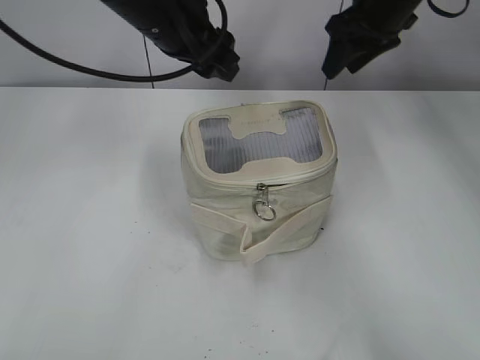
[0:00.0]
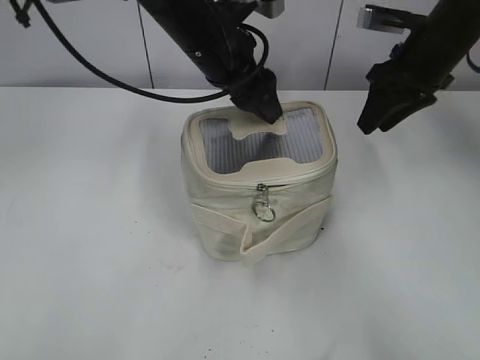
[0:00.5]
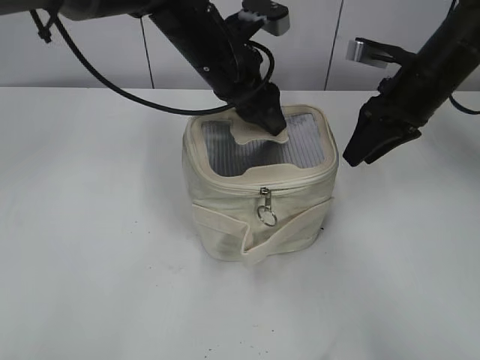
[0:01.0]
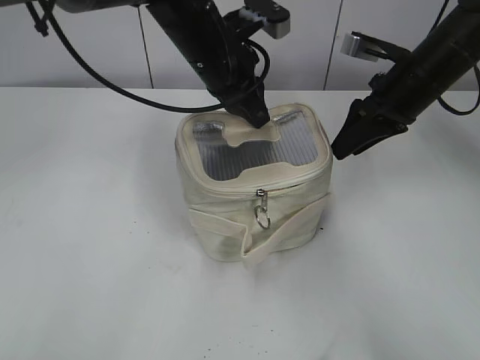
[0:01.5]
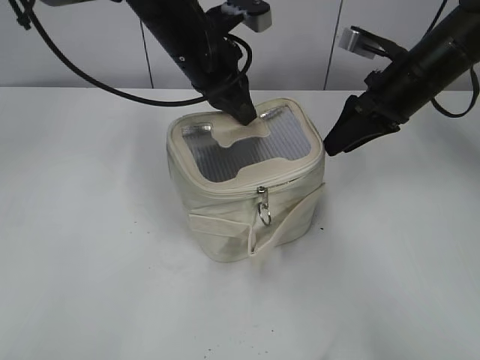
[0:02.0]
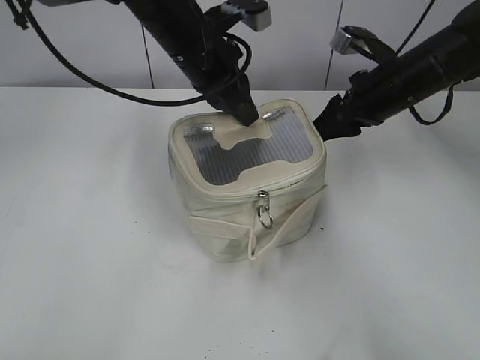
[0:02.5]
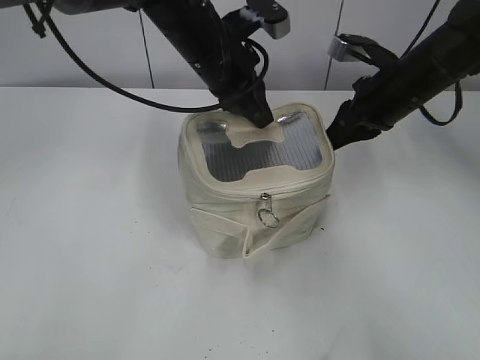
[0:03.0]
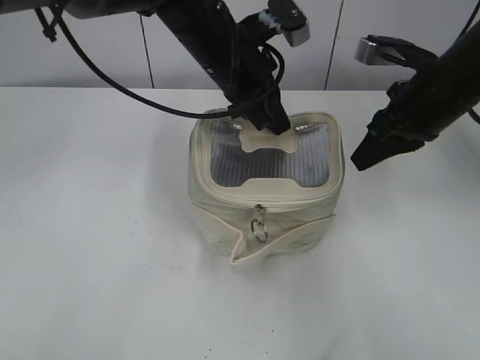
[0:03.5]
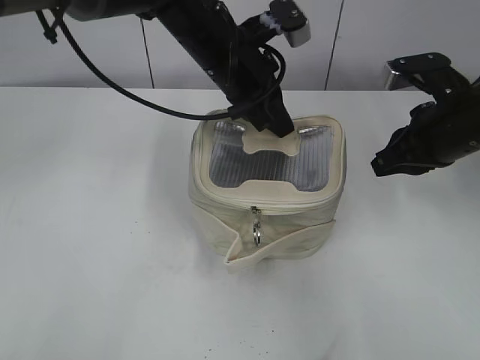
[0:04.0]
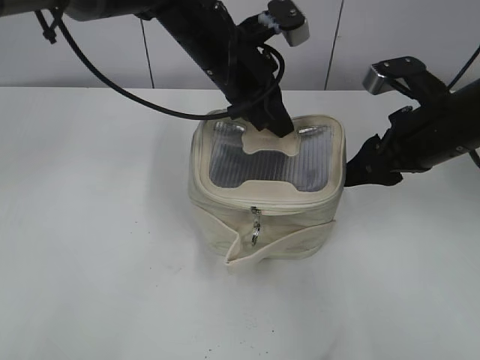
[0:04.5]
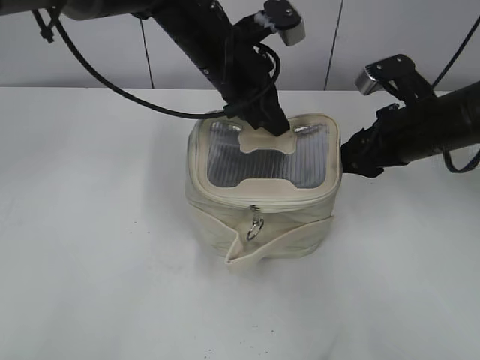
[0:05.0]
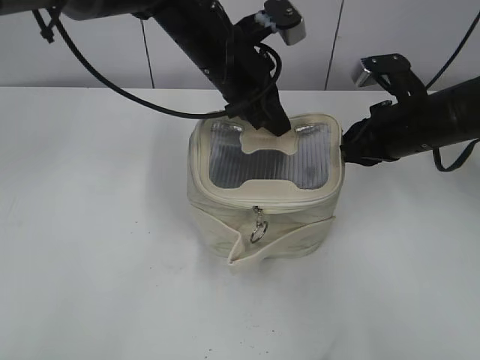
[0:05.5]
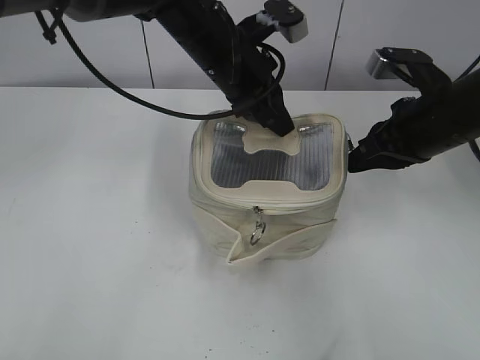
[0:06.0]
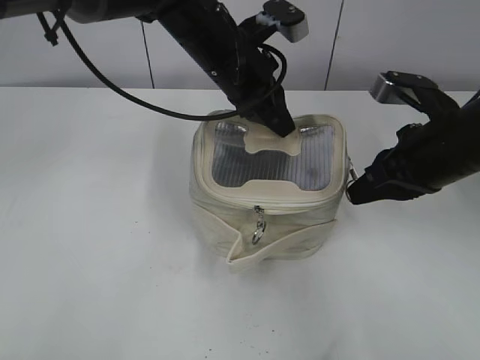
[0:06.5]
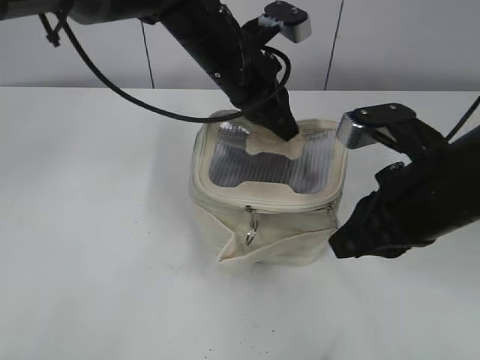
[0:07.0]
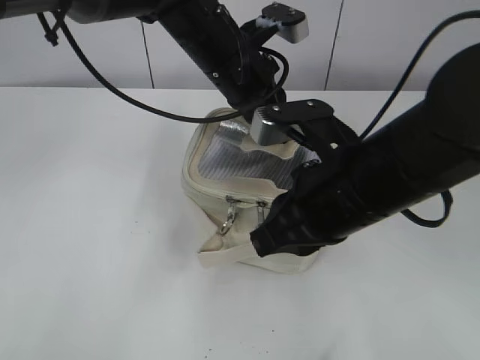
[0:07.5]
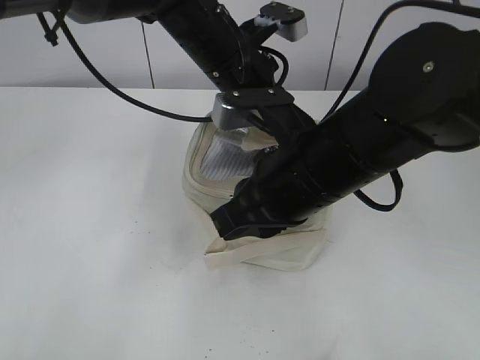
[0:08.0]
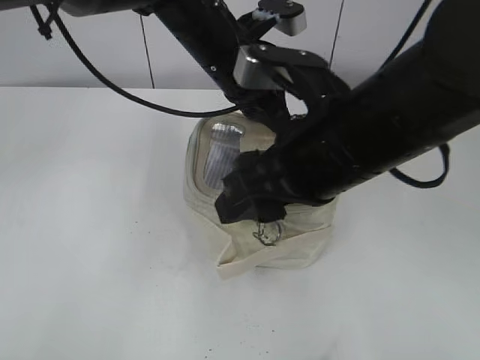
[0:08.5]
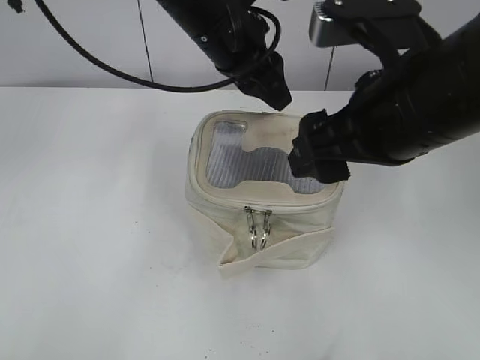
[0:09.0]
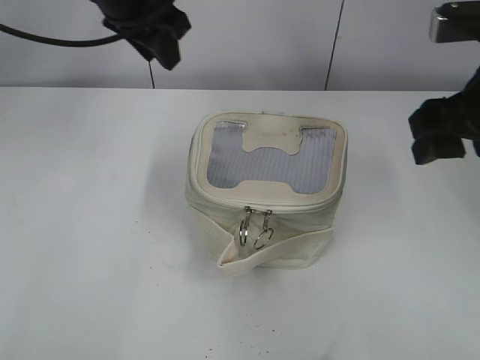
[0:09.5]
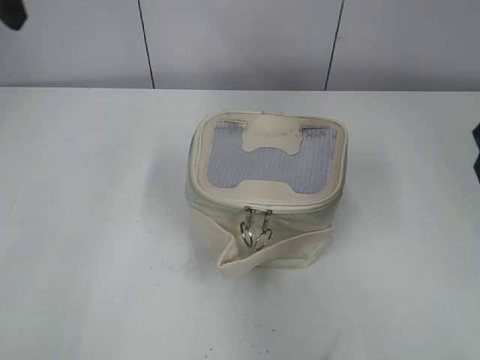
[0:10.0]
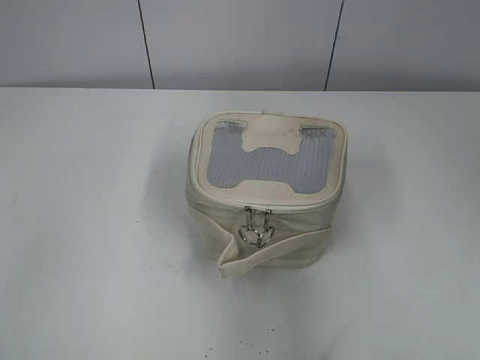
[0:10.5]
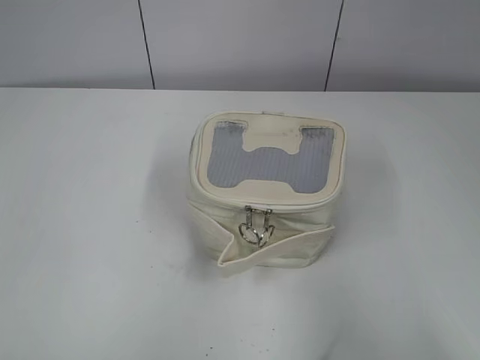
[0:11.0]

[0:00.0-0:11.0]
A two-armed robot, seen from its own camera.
Step, 0:00.0 to 0:08.0: Zip up the bag with your right hand.
0:00.0 to 0:02.0: The right gripper heads downward and backward, covering approximately 10 cm. Meanwhile the left gripper travels downward by approximately 5 cm, and closes up.
0:02.0 to 0:03.5: The right gripper is displaced backward by approximately 5 cm, and closes up.
0:03.5 to 0:05.5: The right gripper moves downward, roughly 5 cm, and opens, then closes once more.
0:05.5 to 0:07.5: The right gripper heads backward and to the left, covering some 15 cm.
0:07.5 to 0:09.0: The right gripper heads upward, covering about 5 cm, and opens up. The left gripper opens up.
0:09.0 to 0:11.0: The left gripper moves backward and to the left, approximately 50 cm. The right gripper shifts some 25 cm backward and to the right.

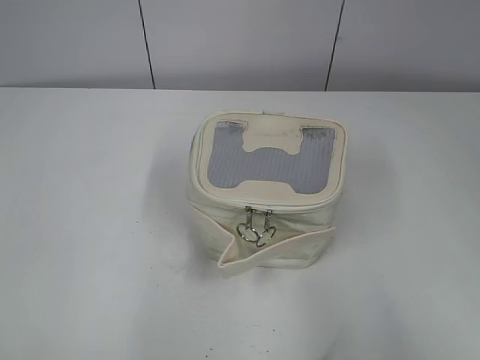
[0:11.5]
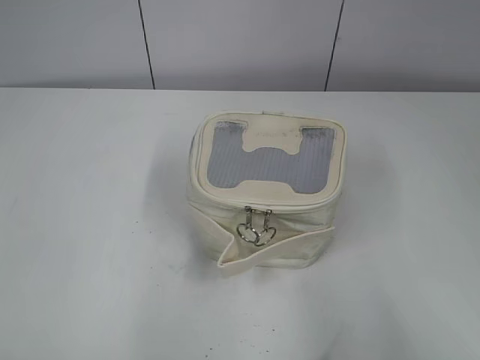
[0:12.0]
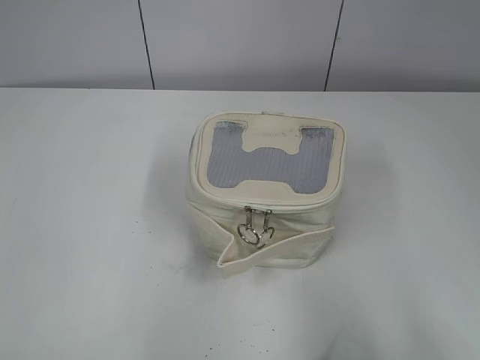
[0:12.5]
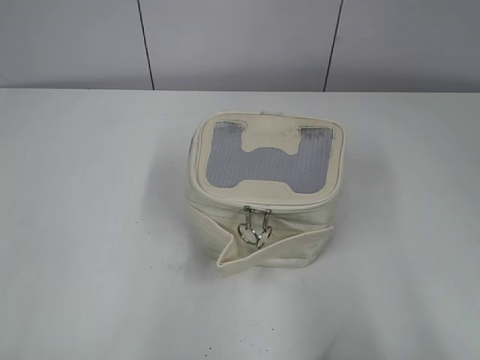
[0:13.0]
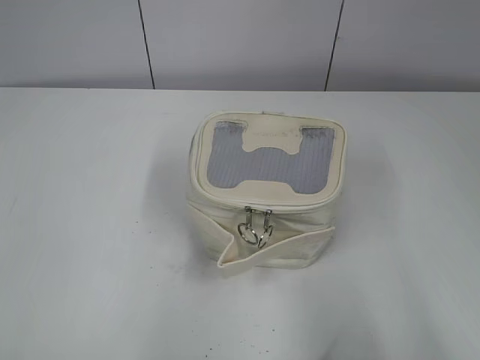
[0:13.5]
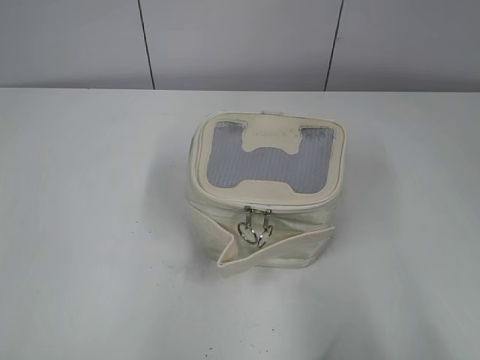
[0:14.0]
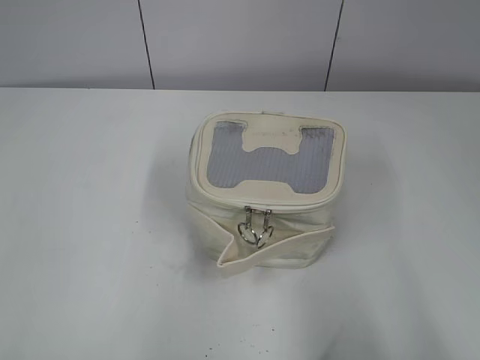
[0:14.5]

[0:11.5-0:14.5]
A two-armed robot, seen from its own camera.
0:13.0 to 0:14.5: Both grippers stay about where they are.
